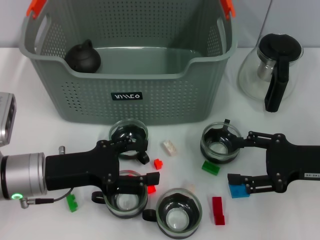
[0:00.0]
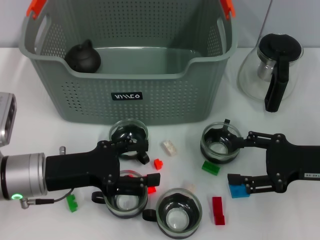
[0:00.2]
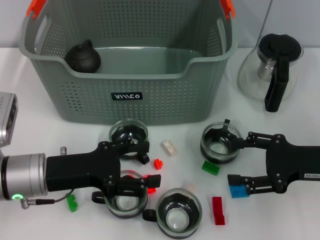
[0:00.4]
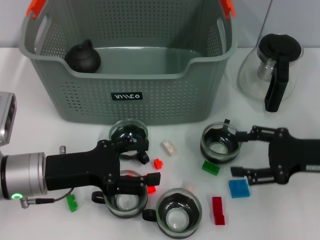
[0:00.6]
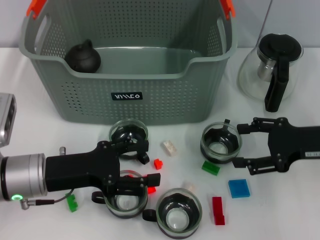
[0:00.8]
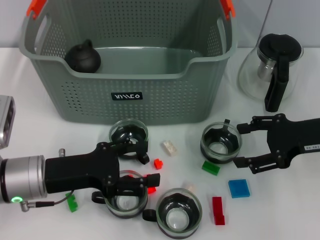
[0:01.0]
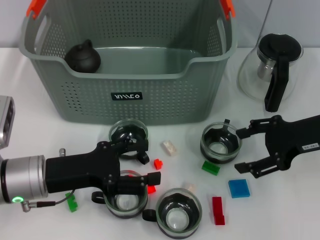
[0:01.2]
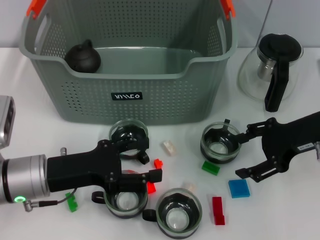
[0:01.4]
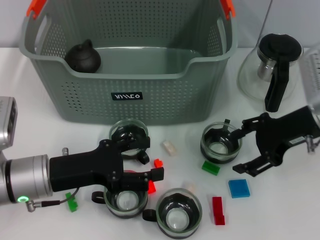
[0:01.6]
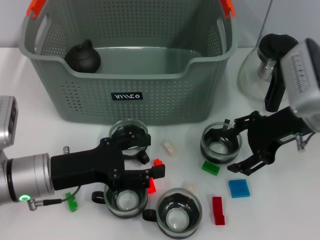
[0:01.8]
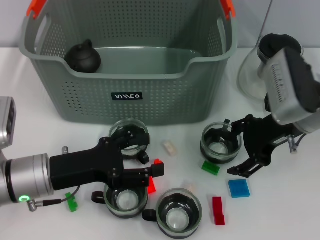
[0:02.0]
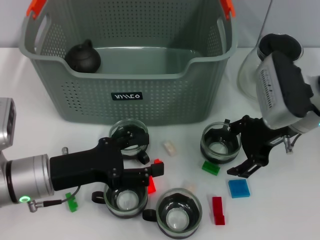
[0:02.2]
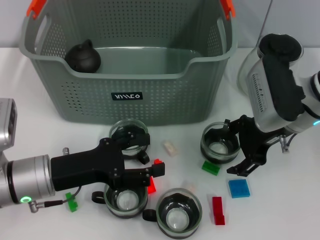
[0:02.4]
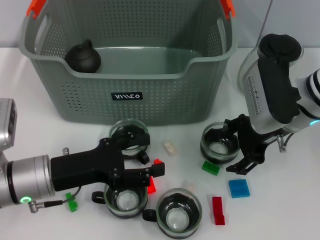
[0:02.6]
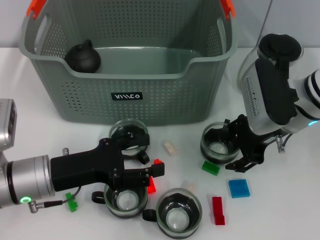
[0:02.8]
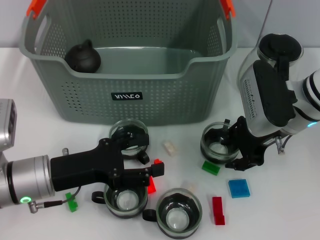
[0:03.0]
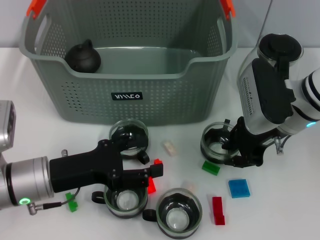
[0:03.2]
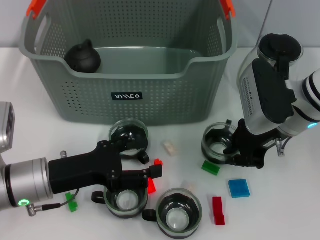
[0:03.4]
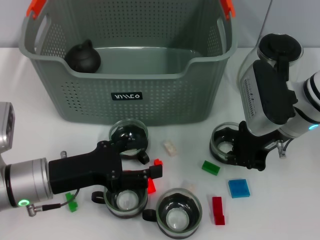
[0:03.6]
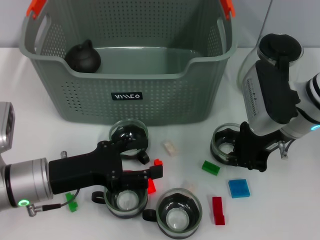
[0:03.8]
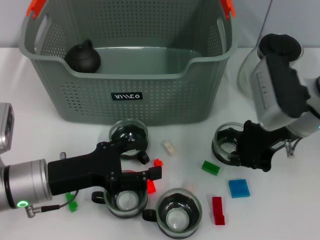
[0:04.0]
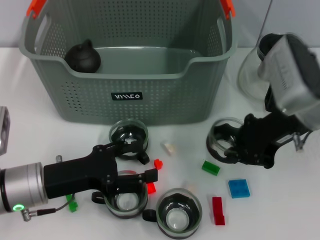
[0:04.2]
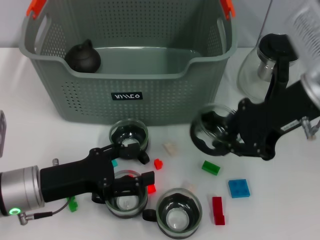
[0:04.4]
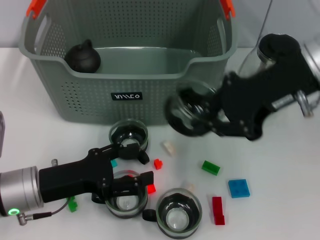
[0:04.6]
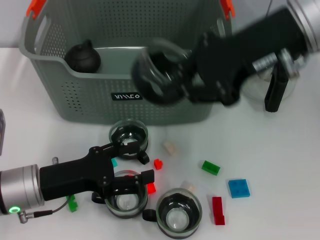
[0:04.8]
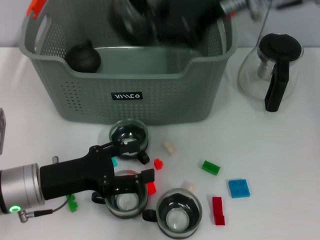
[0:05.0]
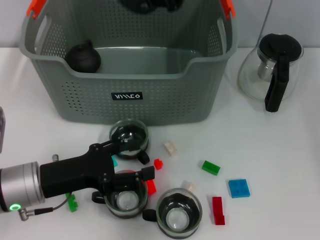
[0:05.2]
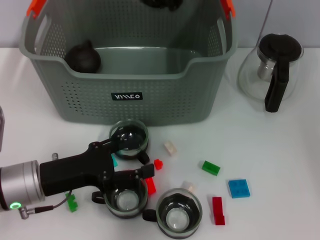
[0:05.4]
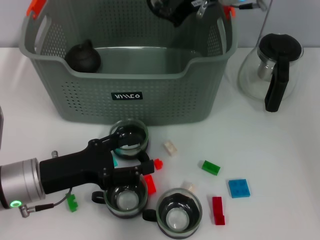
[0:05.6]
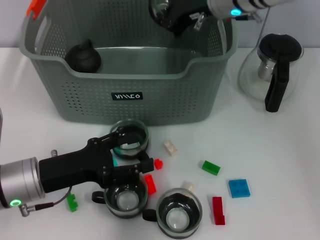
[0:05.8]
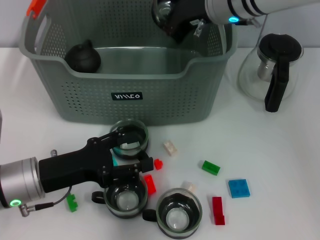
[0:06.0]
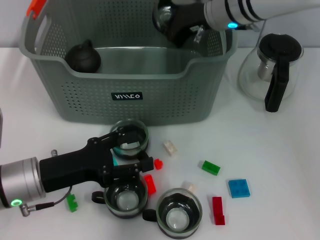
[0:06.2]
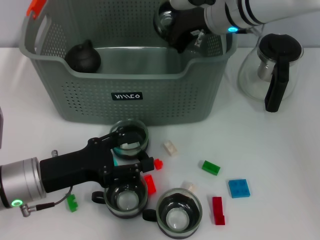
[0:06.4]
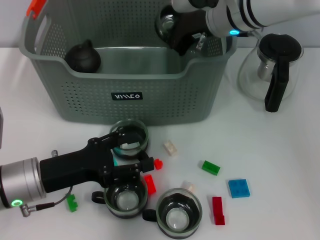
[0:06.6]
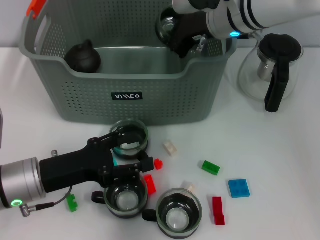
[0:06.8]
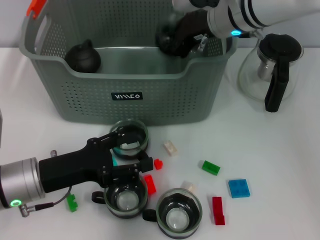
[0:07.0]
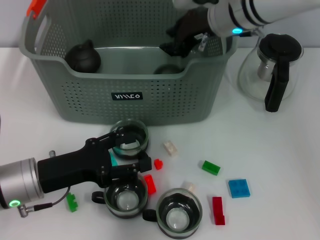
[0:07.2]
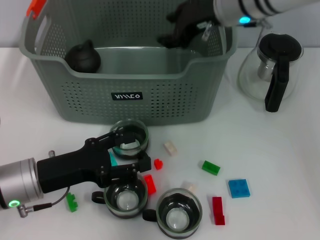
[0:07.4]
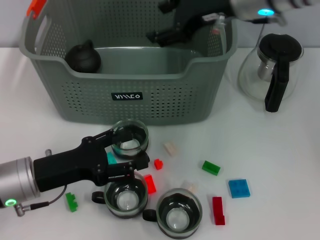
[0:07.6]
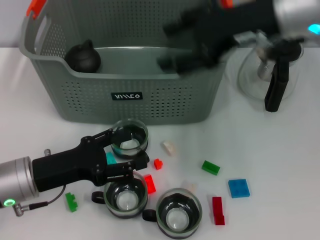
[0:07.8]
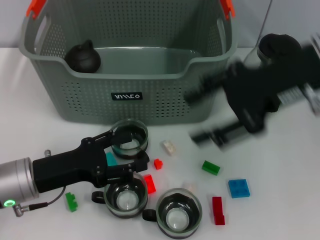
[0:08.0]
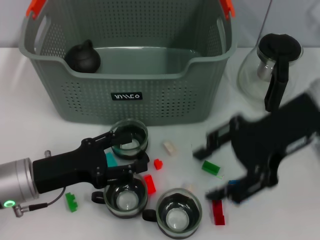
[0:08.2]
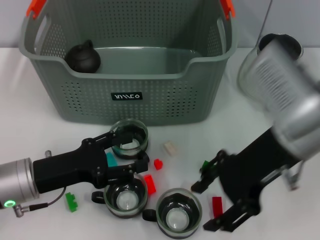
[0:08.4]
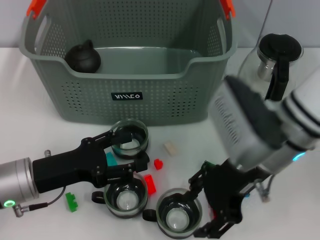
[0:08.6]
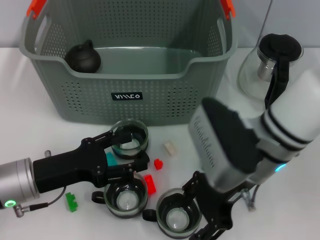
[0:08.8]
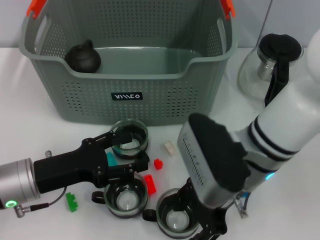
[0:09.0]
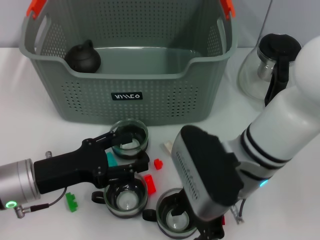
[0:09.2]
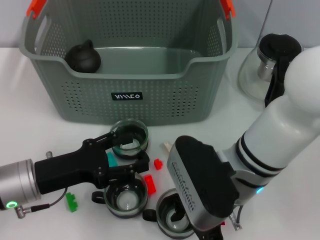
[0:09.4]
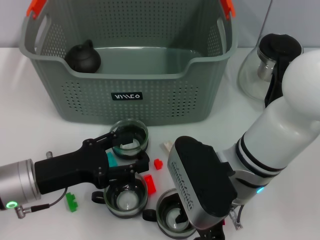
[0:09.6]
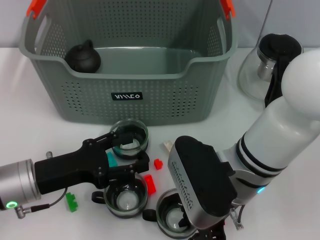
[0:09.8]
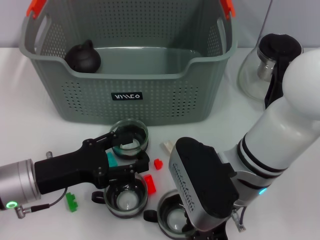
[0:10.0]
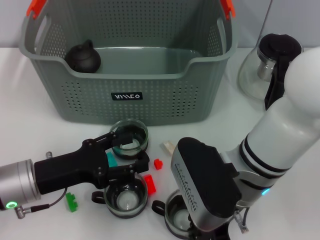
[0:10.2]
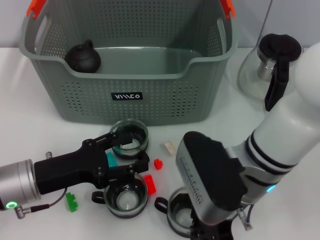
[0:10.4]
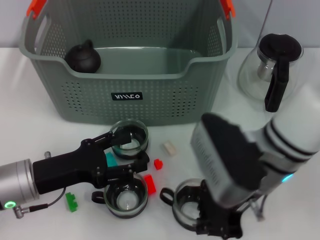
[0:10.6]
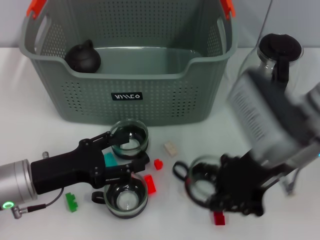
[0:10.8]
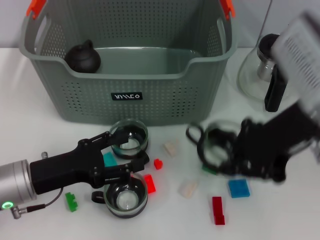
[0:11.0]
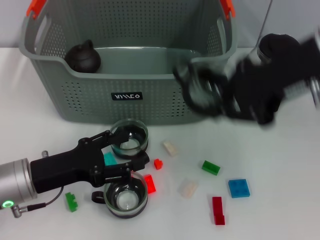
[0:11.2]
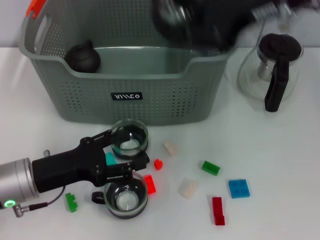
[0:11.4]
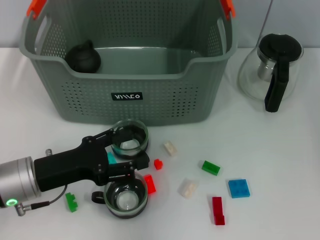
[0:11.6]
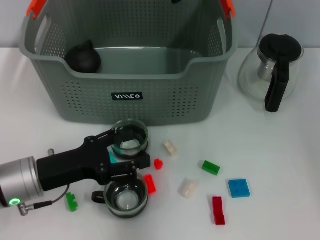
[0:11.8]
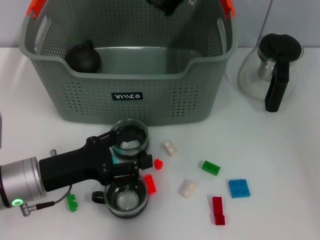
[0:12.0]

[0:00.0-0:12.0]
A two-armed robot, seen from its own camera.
Task of the whole recording: pick up the teacup on the table and place it into the storage bin, pick up the block on the table and place it into the storage bin.
Step, 0:00.0 to 0:03.4: Grasp the cup with right gripper.
Step, 0:03.6 to 0:07.0: Place the cup in the storage box with right gripper.
Step, 0:07.4 to 0:10.0: Grasp the cup with right gripper.
0:00.0 to 0:01.6: The right gripper travels forward and upward by some 10 cm.
0:01.6 to 0:03.0: The right gripper moves to the left, roughly 5 cm.
0:03.0 to 0:04.4: The right gripper travels upward by roughly 10 cm, and closes its fingers.
0:04.4 to 0:06.0: The right gripper heads forward and to the left, covering about 15 cm.
0:06.0 to 0:07.6: The right gripper ends up roughly 5 cm from where it was, and opens its fingers.
0:07.6 to 0:09.0: The right gripper heads backward and downward, covering about 15 cm.
0:09.0 to 0:10.4: The right gripper closes up.
0:10.4 to 0:12.0: The right gripper heads forward and upward, covering approximately 20 cm.

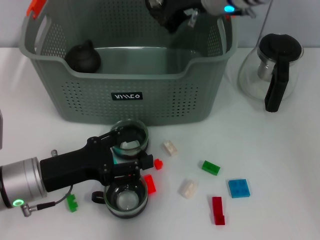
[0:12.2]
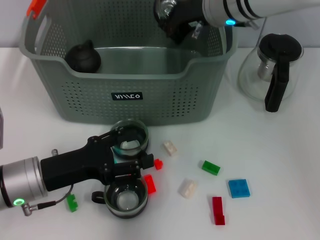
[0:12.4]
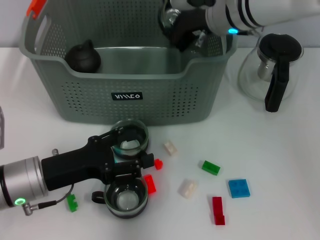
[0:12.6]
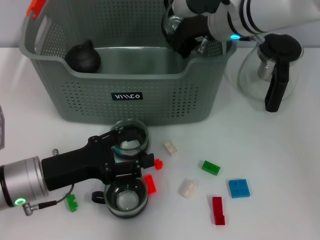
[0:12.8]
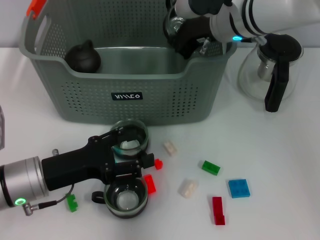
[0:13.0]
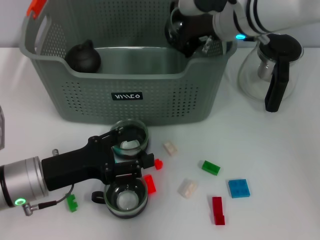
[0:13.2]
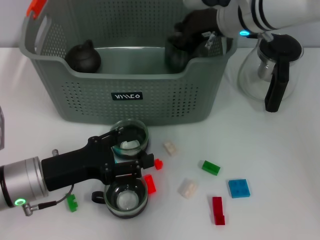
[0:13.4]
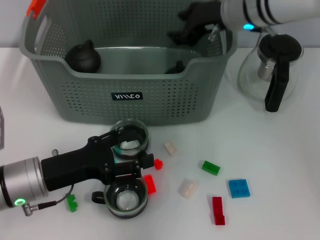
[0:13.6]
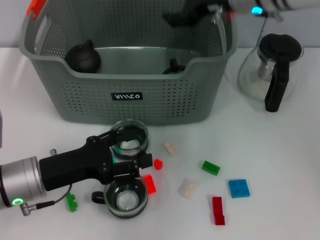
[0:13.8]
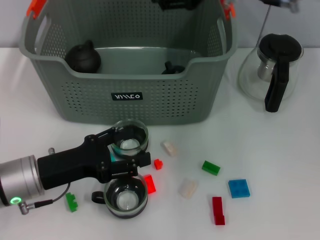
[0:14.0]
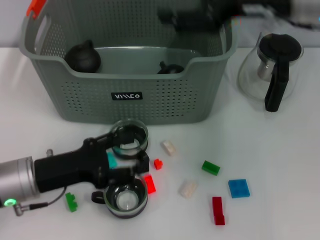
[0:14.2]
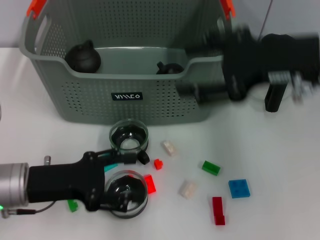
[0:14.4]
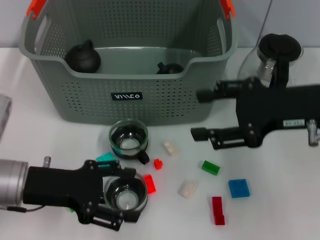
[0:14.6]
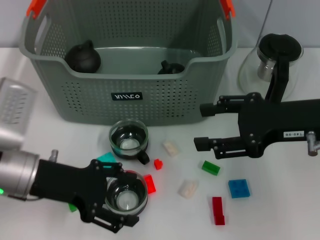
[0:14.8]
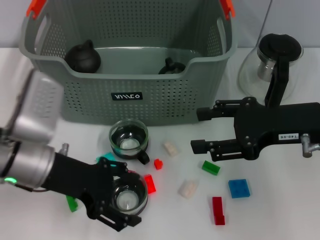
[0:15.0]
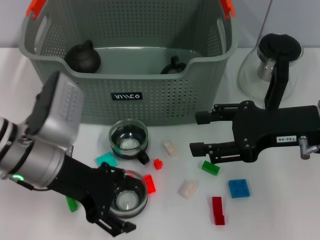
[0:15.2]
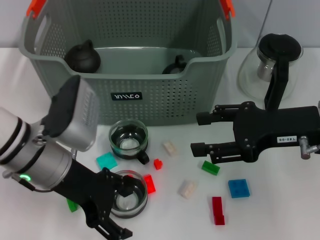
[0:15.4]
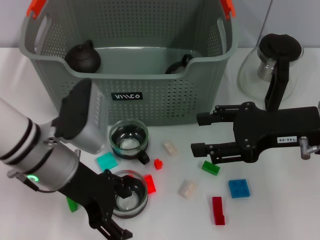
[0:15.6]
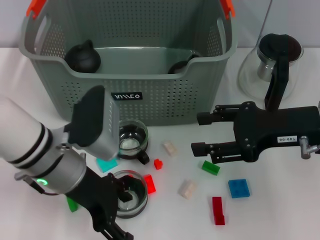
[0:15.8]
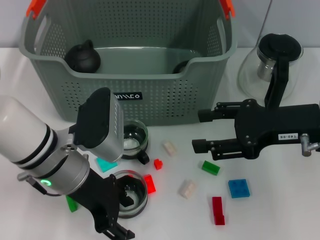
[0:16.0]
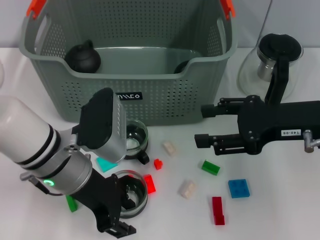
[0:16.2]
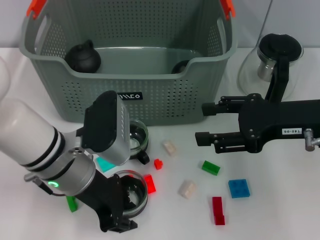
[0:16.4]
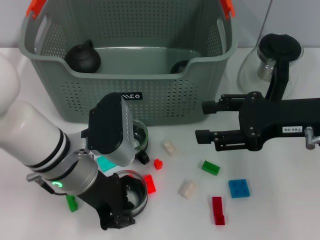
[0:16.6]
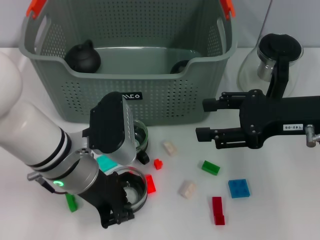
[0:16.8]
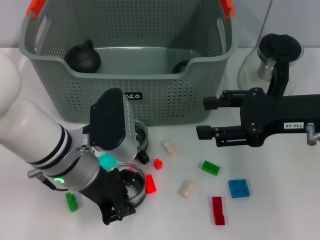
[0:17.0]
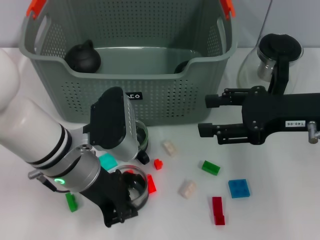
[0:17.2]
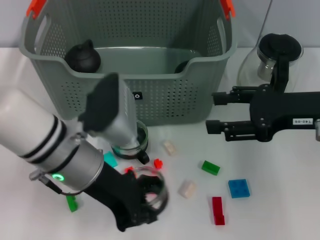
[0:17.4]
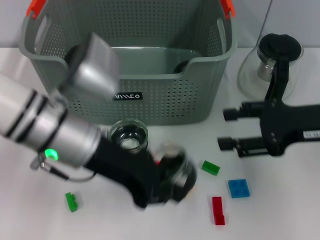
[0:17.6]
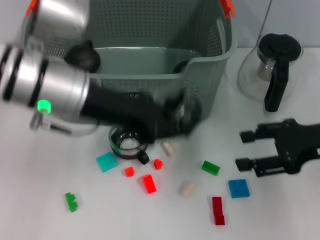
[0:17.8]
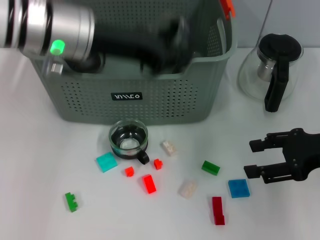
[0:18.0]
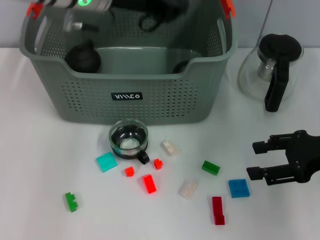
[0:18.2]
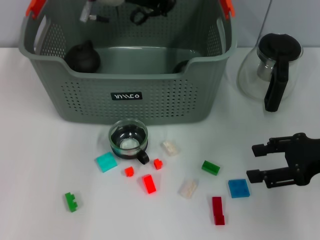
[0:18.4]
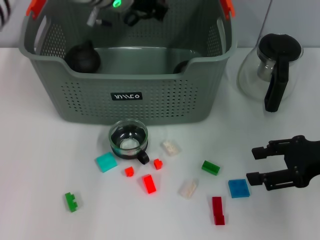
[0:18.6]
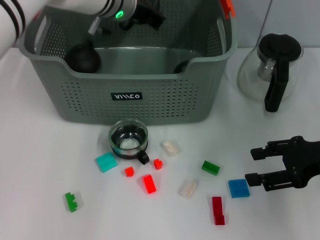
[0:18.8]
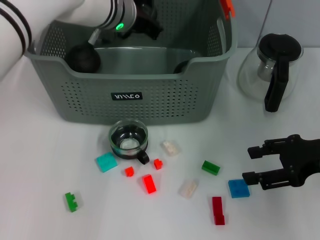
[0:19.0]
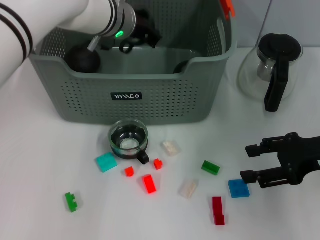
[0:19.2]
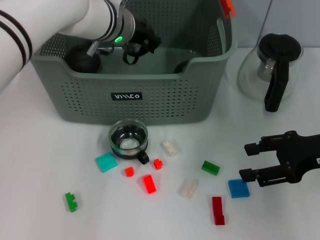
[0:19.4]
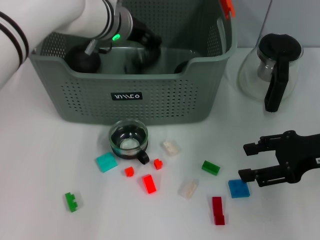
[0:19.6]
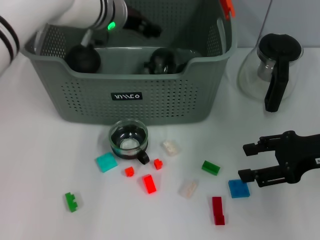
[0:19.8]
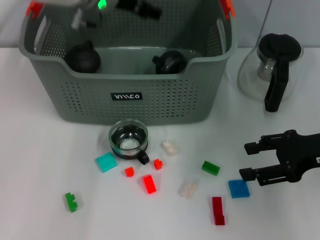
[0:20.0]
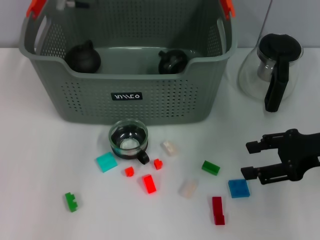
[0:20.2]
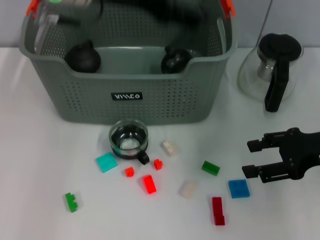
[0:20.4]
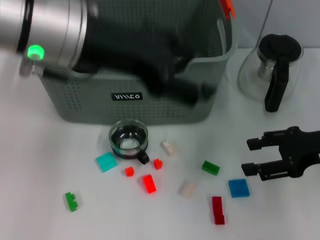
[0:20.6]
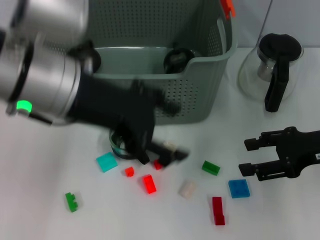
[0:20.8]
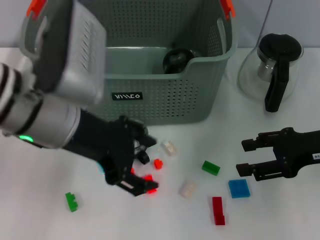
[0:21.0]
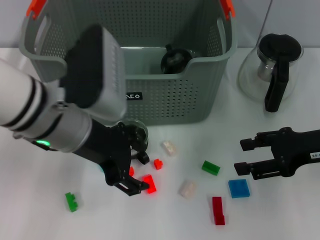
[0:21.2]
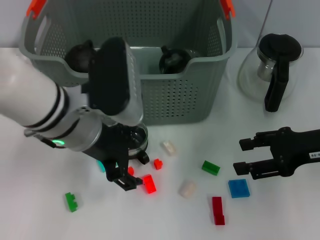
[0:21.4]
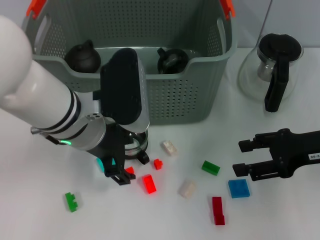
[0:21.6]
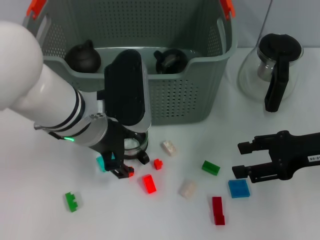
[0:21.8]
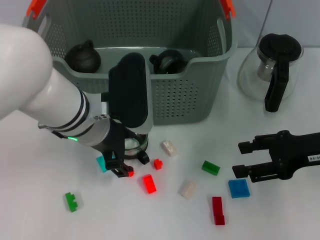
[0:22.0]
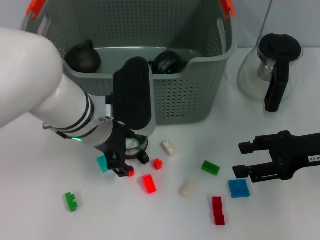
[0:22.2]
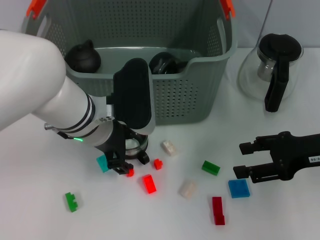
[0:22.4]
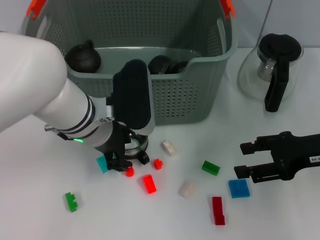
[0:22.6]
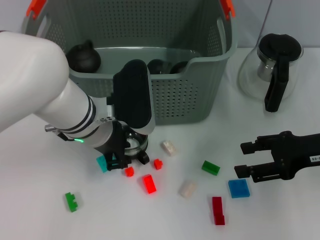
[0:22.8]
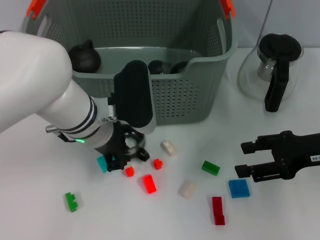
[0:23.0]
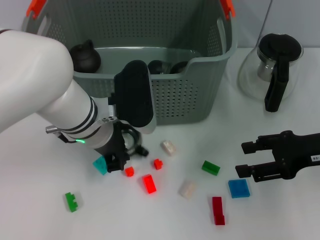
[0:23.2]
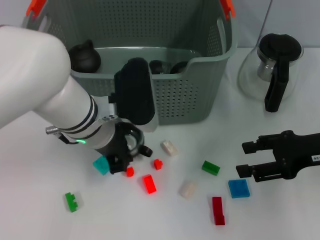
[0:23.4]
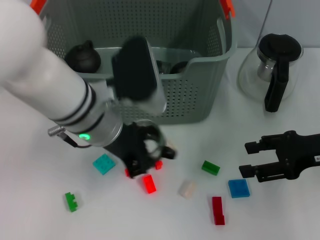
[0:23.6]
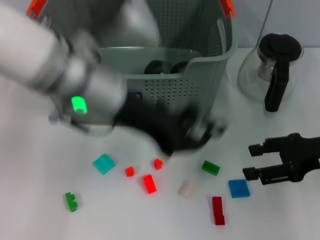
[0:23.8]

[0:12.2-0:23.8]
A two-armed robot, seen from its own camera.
Task of the whole recording: pick up the teacup on the table and place it into the storage bin, pick up the block on the table and place it into the storage bin.
Step, 0:13.8 to 0:16.6: Grasp the cup with left gripper.
Step, 0:17.0 to 0:19.6: Place the cup in the storage box with left gripper.
Step, 0:20.0 to 0:23.0: Grasp the cup with left gripper.
0:12.2 to 0:13.6: There are only small adjustments of the grippers.
0:13.6 to 0:15.0: The right gripper shifts roughly 20 cm backward and to the right, and opens its fingers; the left gripper is displaced upward by approximately 5 cm.
0:15.0 to 0:16.6: The left gripper shifts approximately 5 cm to the right, and closes up.
0:16.6 to 0:18.0: The left gripper shifts about 15 cm upward and forward, and closes. Meanwhile the right gripper travels to the right by roughly 5 cm.
0:18.0 to 0:19.4: The left gripper heads forward, downward and to the right, covering some 15 cm.
0:19.4 to 0:21.0: The left gripper is displaced backward by roughly 20 cm, and opens.
0:21.0 to 0:22.4: The left gripper is displaced downward and forward by about 10 cm.
0:22.4 to 0:23.8: The left gripper heads upward, covering roughly 10 cm, and closes.
